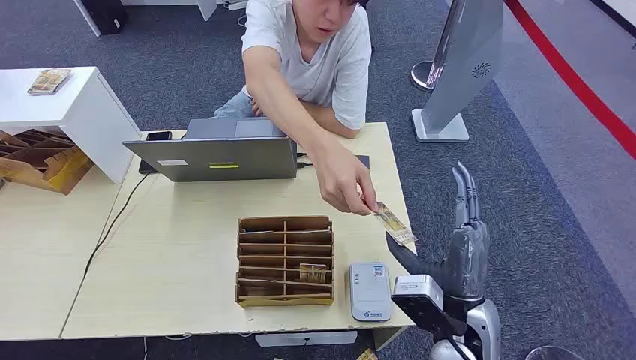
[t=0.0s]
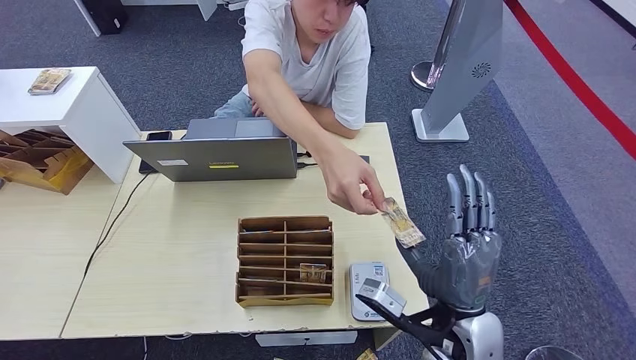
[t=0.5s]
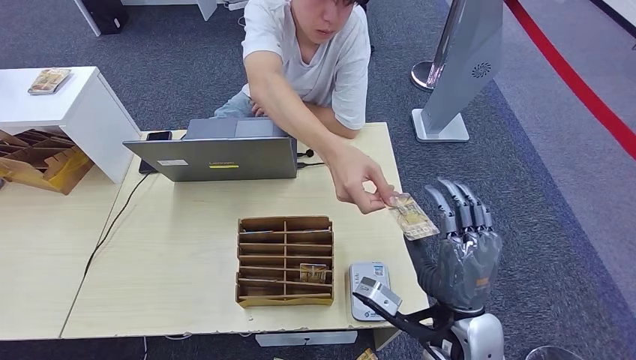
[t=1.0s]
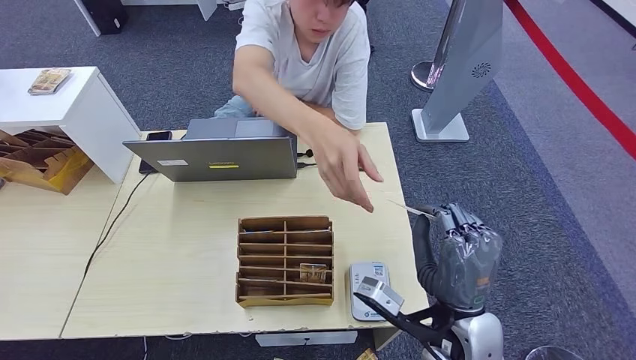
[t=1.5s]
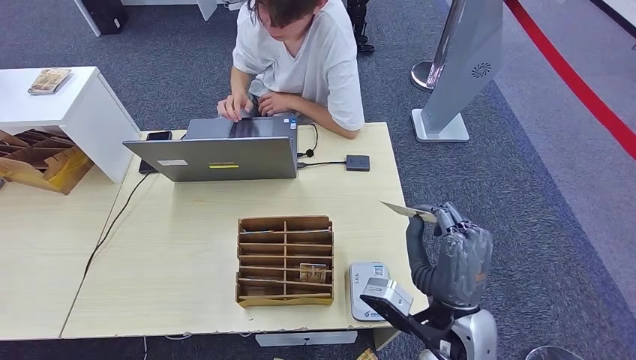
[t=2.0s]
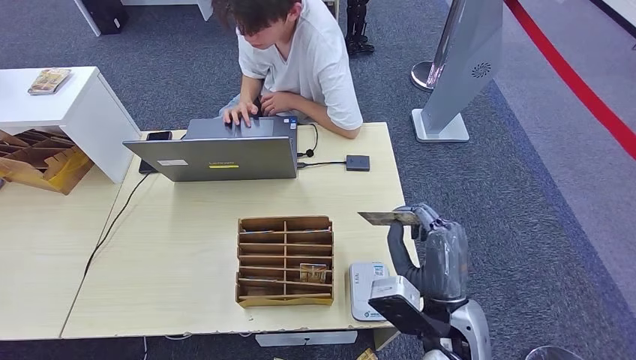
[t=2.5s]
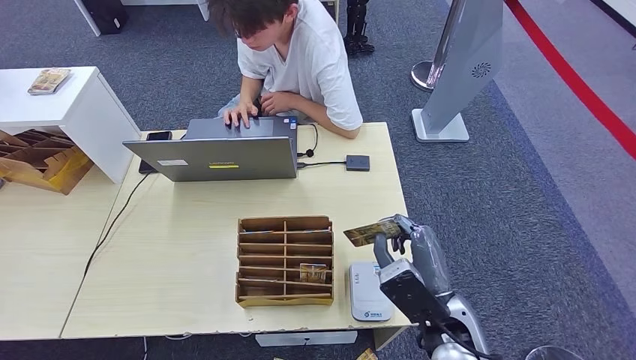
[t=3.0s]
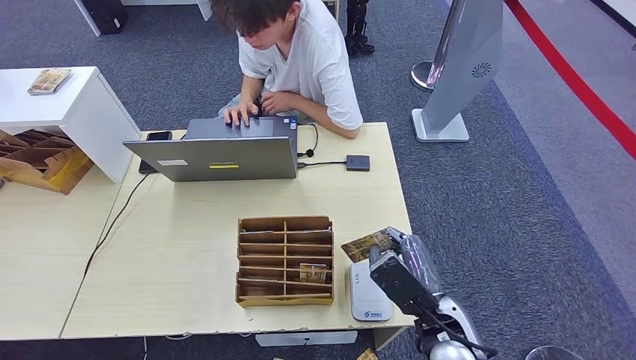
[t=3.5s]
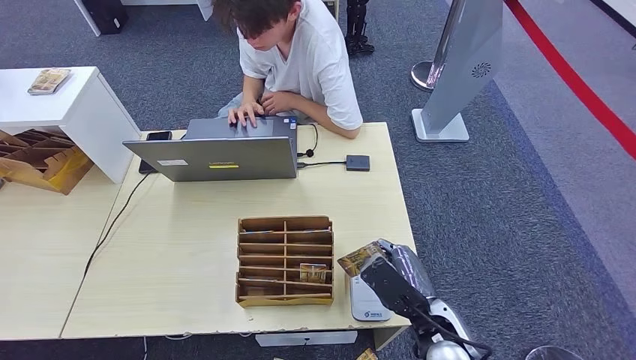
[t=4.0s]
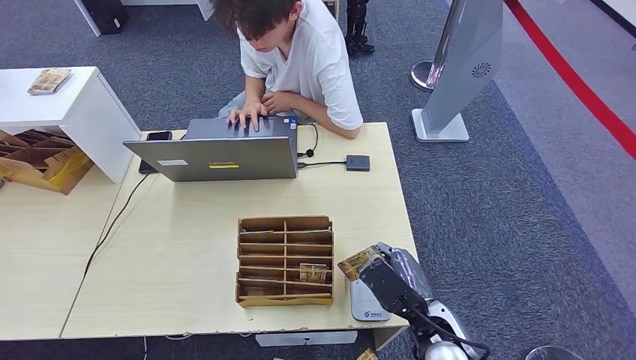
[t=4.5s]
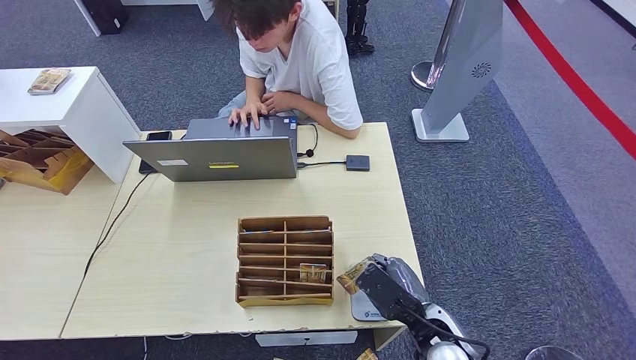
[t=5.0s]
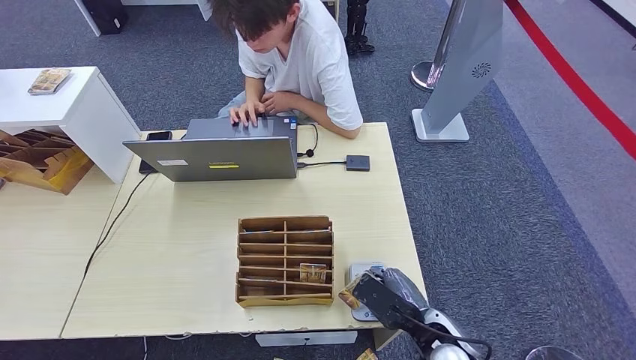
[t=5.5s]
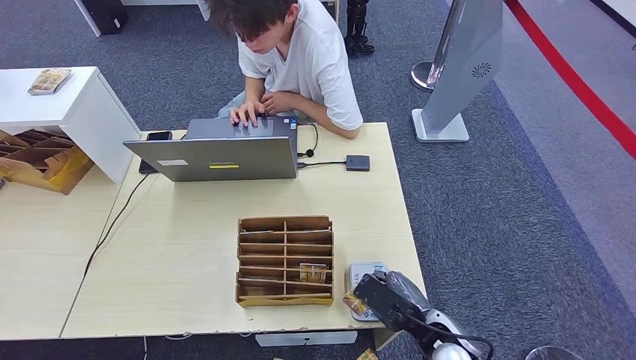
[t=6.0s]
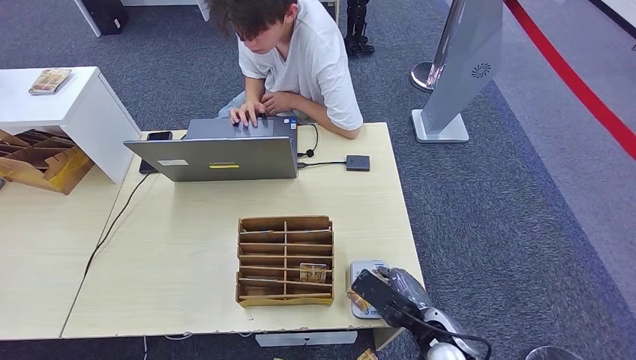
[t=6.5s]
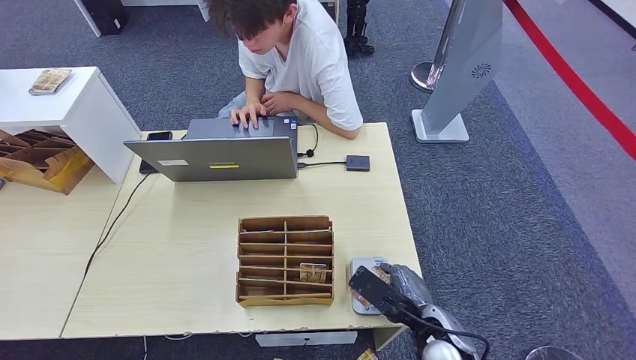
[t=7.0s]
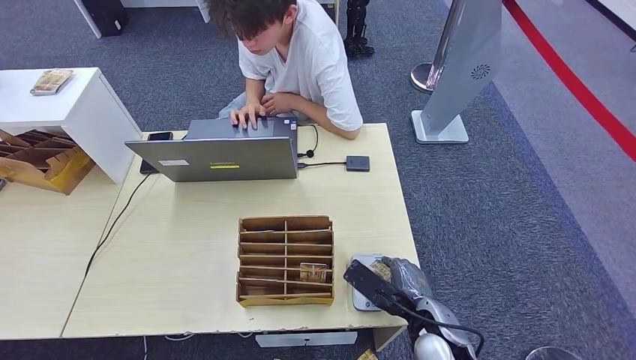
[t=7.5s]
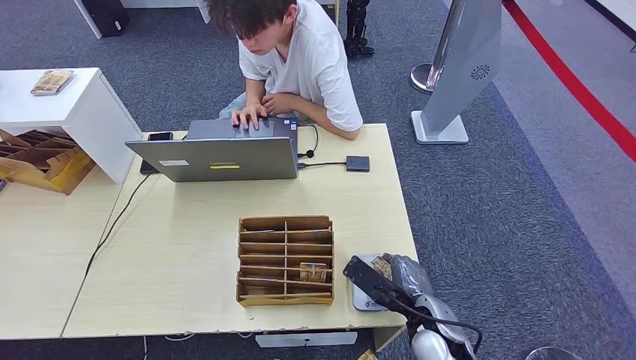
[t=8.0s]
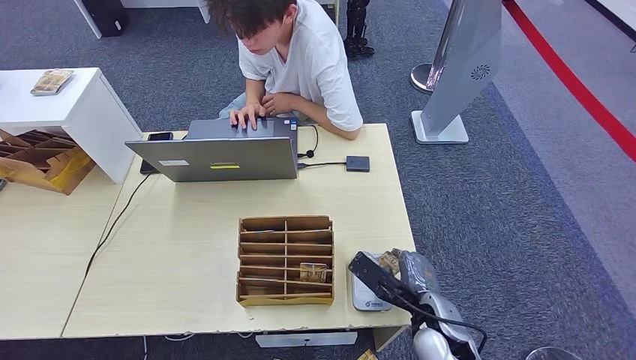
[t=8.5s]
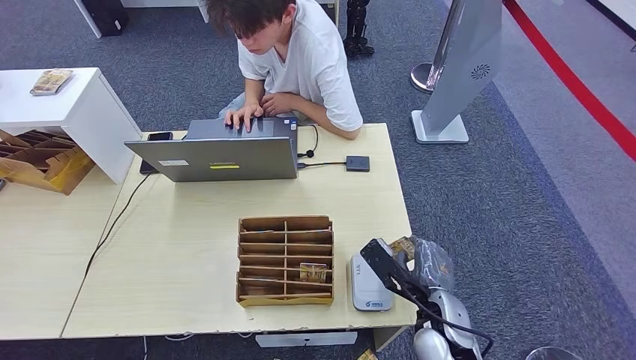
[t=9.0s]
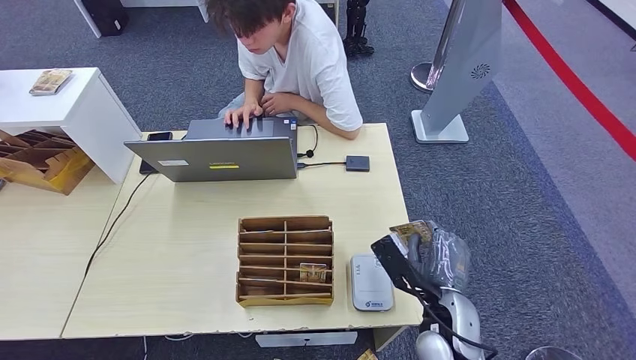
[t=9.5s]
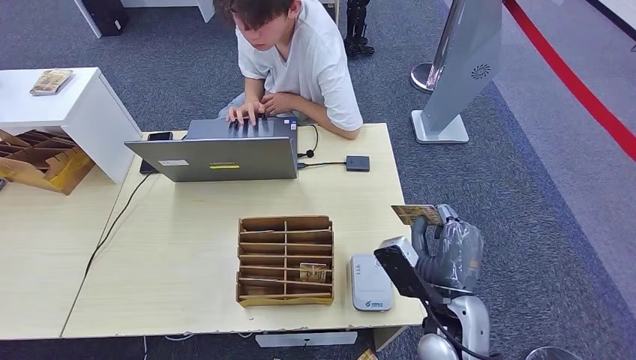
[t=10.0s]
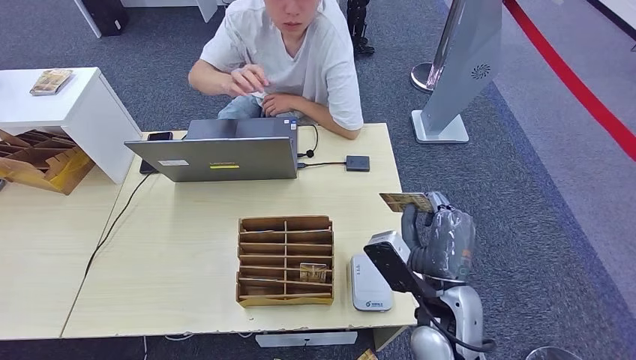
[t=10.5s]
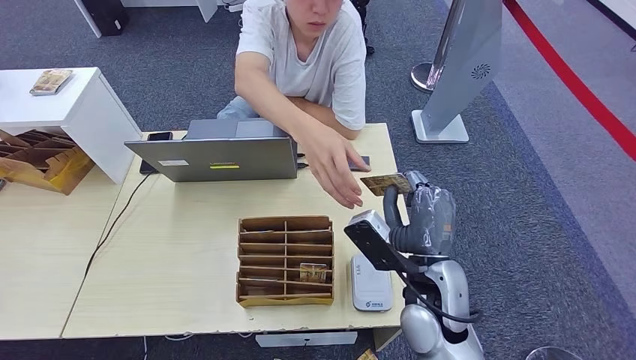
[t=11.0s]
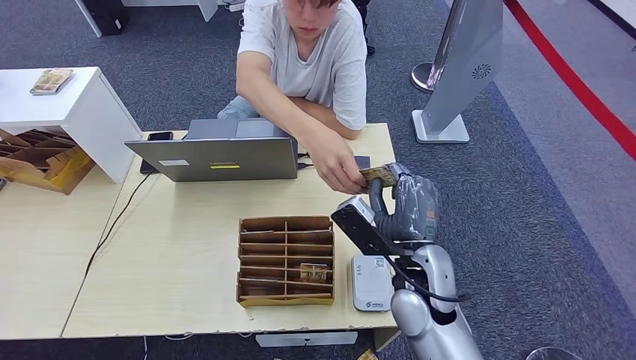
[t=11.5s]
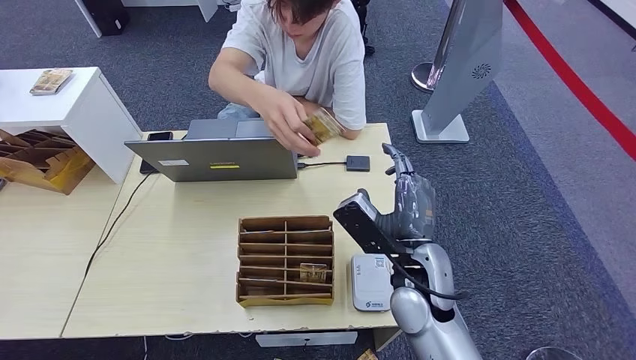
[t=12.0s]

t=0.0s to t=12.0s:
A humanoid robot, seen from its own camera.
Step, t=0.0s to t=1.5s: Take the ID card from the person's hand.
Step, t=2.0s to t=9.0s: Place the ID card on the card reader.
Step, t=9.5s to t=11.5s: Hand the ID card to the person.
t=2.0s to t=4.0s: The right hand is displaced downward by approximately 5 cm.
t=4.0s to t=6.0s: The right hand moves some 5 cm.
t=6.0s to t=8.0s: The hands move only a little.
t=8.0s to t=10.0s: The right hand travels upward by some 5 cm.
t=10.0s to t=12.0s: The right hand is displaced forward by some 5 cm.

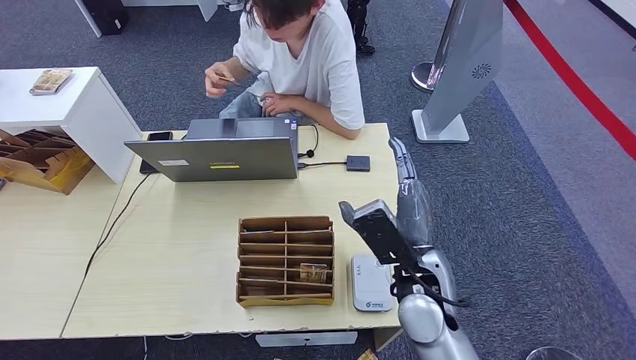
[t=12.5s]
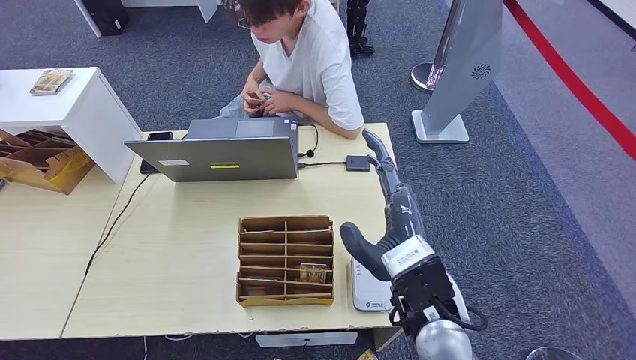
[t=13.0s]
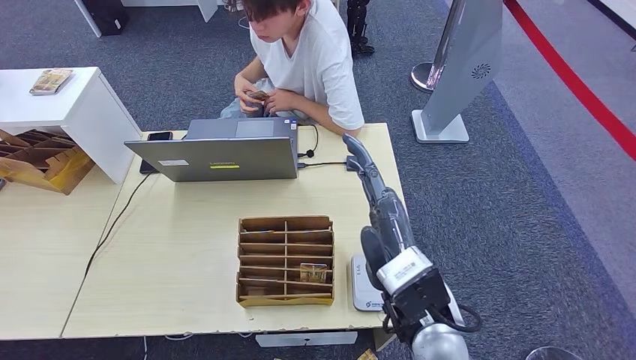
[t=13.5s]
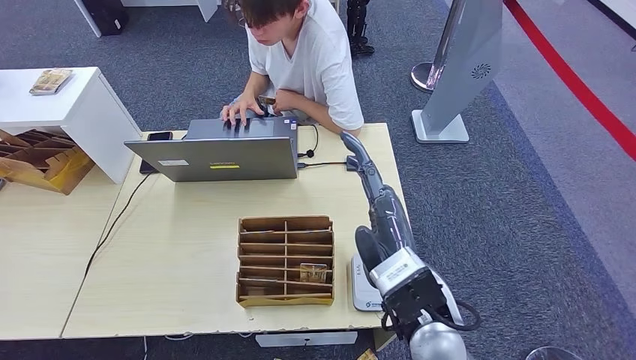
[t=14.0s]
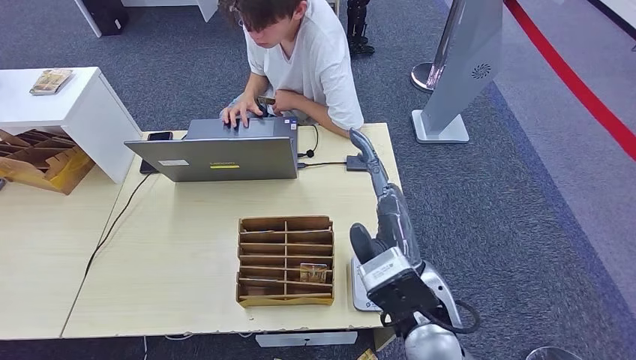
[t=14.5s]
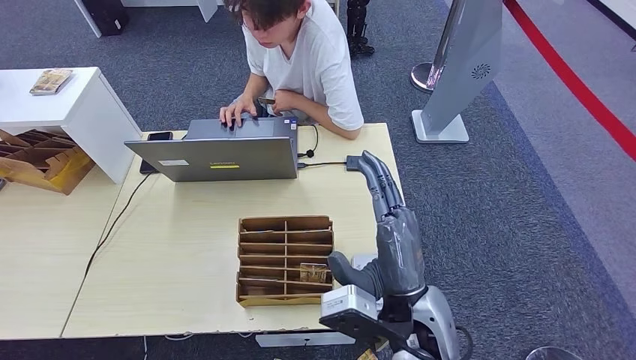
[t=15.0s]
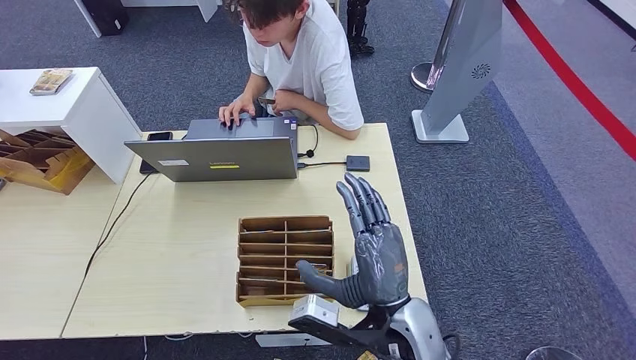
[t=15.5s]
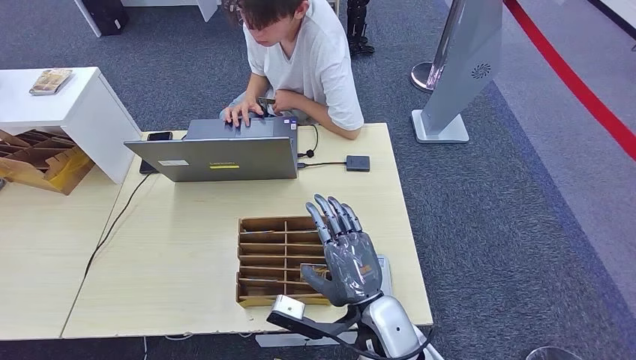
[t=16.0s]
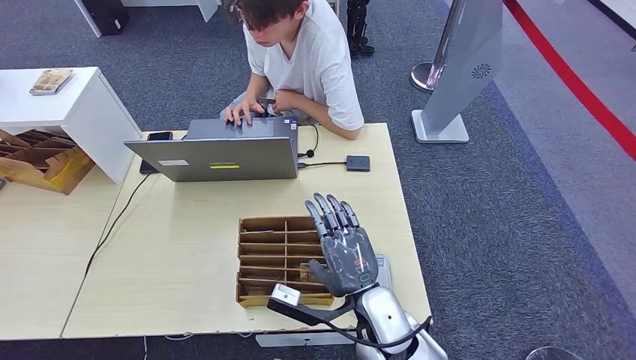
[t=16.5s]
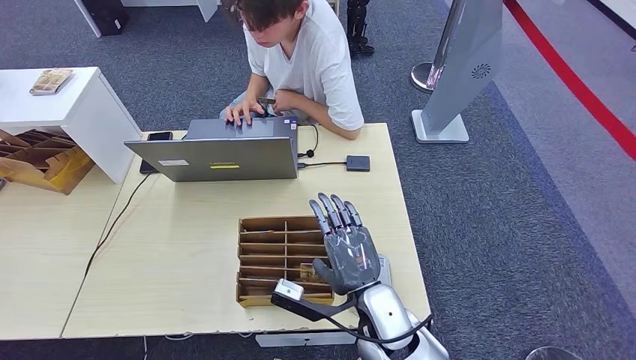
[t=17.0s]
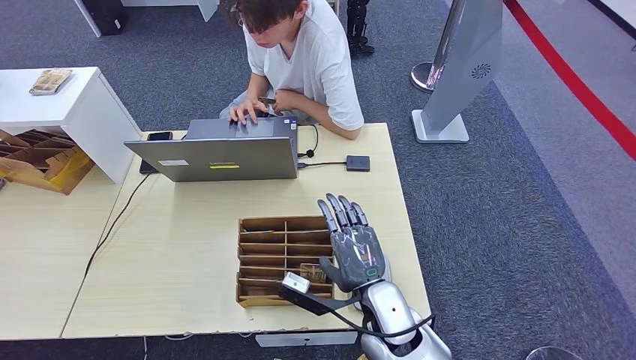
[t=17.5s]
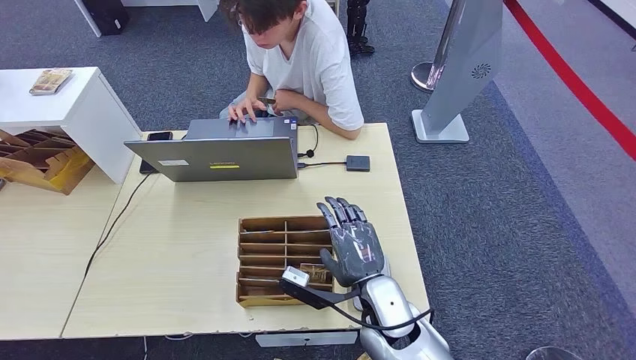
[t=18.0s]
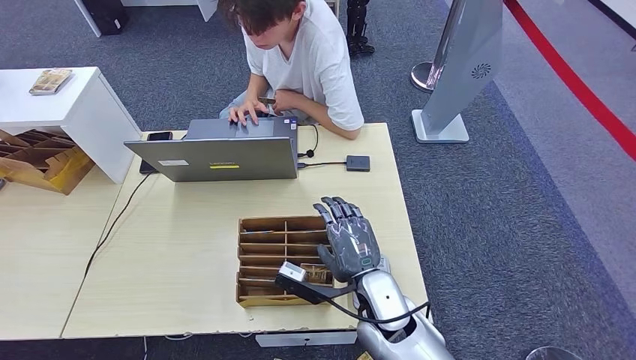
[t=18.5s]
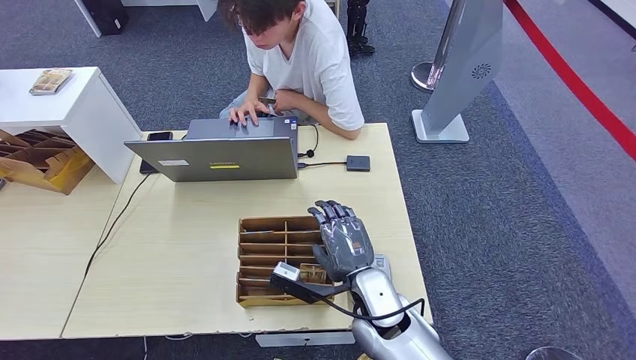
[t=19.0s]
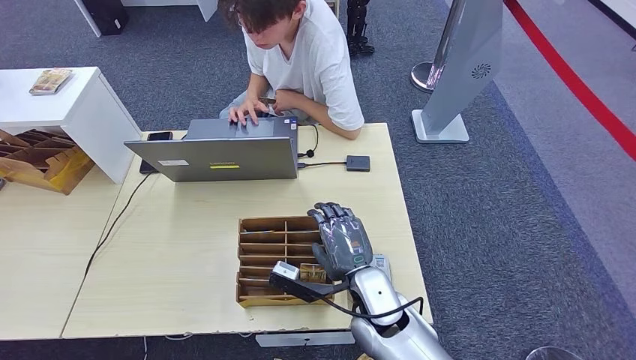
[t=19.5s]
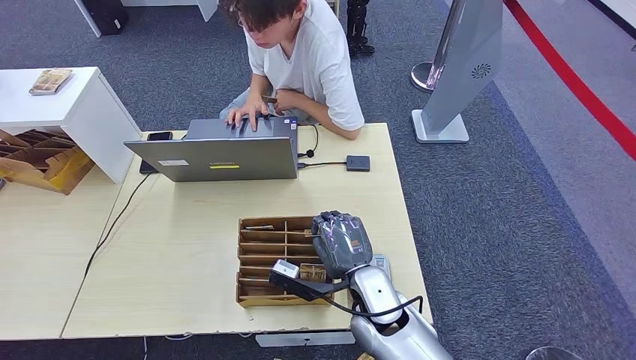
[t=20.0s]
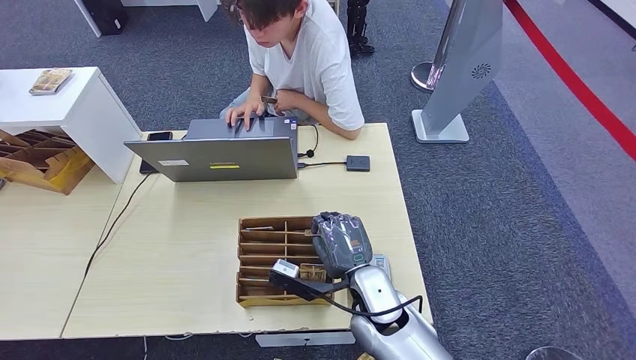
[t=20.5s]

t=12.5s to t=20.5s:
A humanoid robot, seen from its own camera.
t=12.5s to t=14.5s: The right hand shifts roughly 5 cm upward.
t=14.5s to t=16.5s: The right hand heads downward, covering some 10 cm.
t=16.5s to t=18.5s: The hands stay close to where they were, moving slightly.
t=18.5s to t=20.5s: Neither hand changes place.
